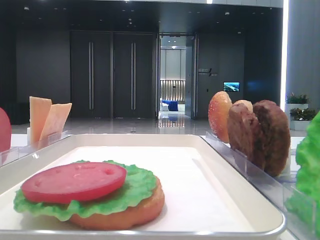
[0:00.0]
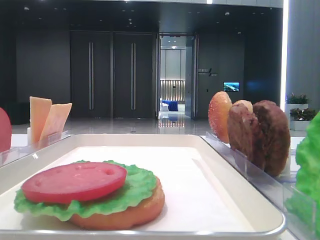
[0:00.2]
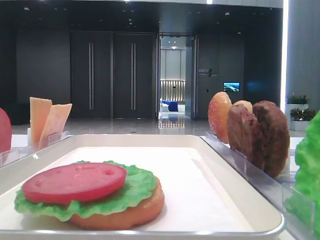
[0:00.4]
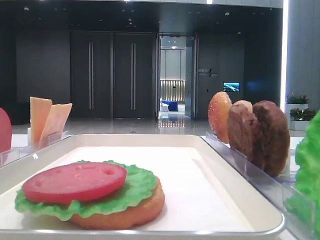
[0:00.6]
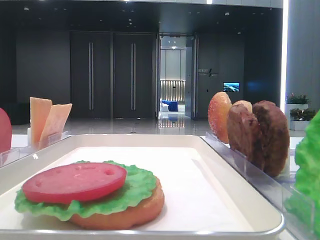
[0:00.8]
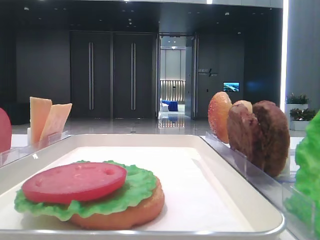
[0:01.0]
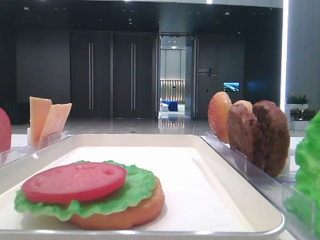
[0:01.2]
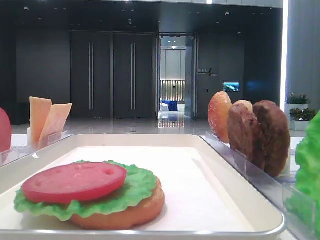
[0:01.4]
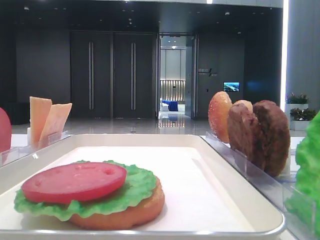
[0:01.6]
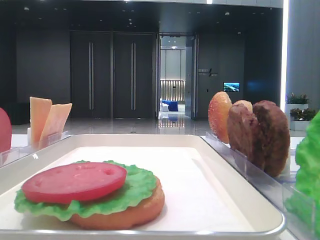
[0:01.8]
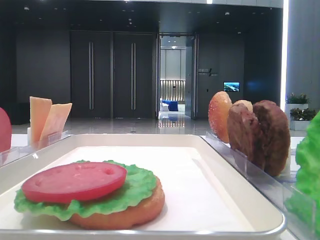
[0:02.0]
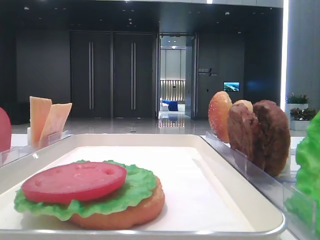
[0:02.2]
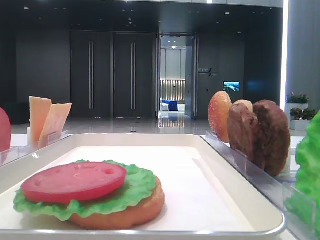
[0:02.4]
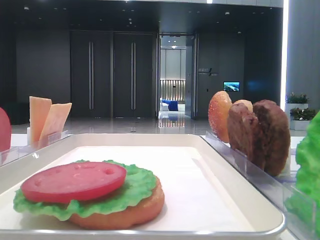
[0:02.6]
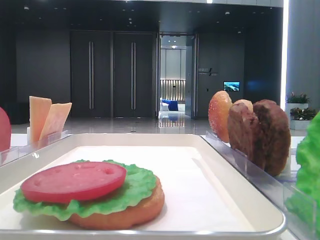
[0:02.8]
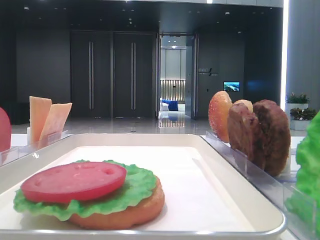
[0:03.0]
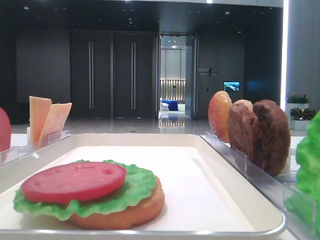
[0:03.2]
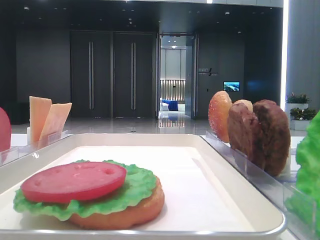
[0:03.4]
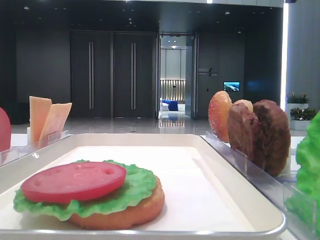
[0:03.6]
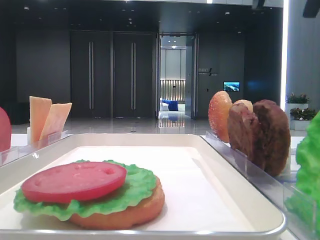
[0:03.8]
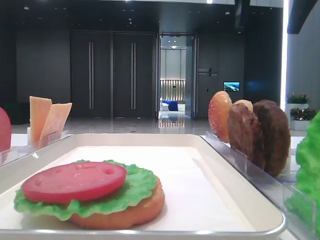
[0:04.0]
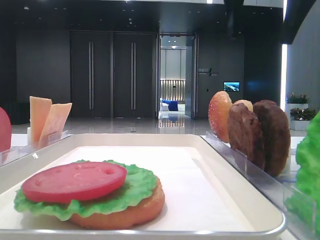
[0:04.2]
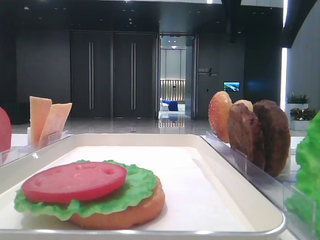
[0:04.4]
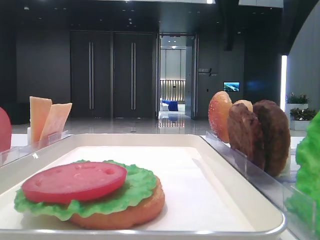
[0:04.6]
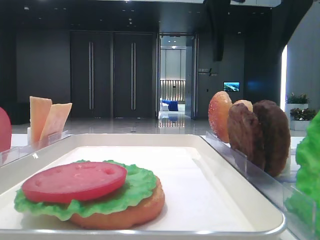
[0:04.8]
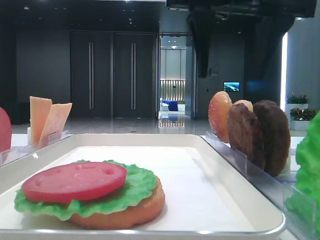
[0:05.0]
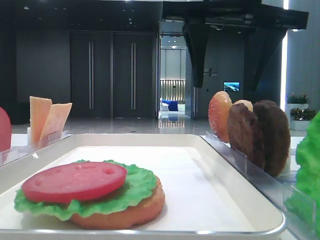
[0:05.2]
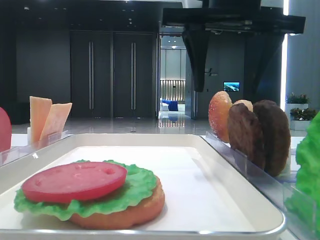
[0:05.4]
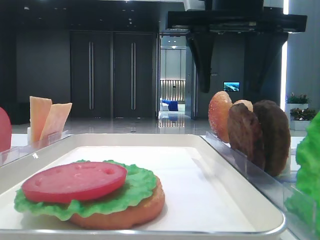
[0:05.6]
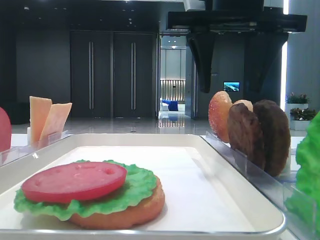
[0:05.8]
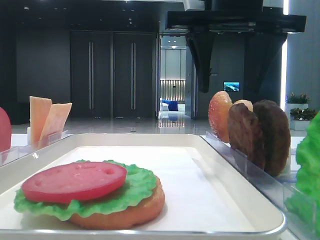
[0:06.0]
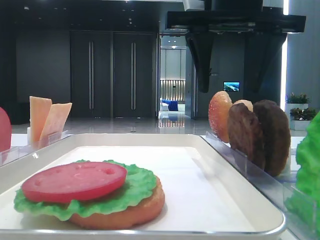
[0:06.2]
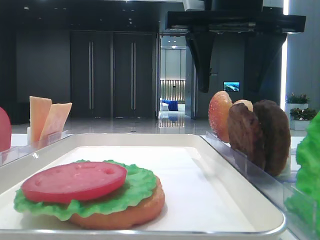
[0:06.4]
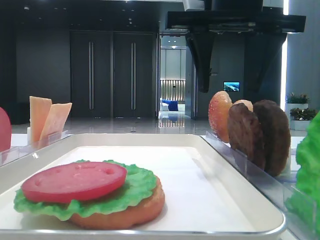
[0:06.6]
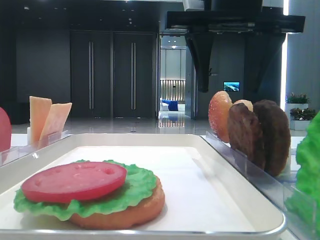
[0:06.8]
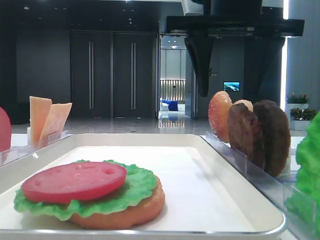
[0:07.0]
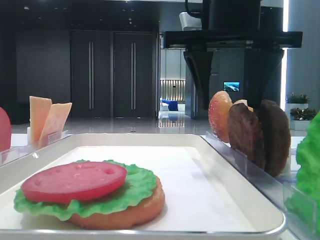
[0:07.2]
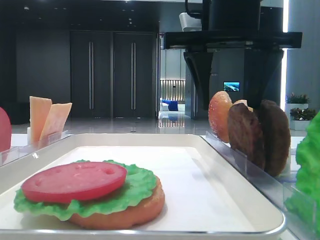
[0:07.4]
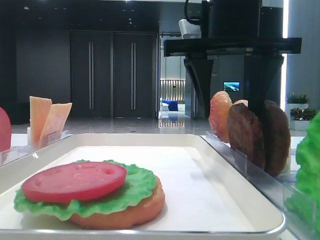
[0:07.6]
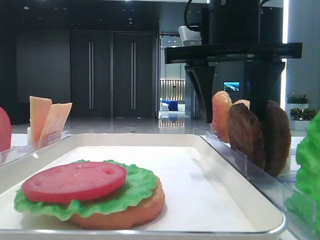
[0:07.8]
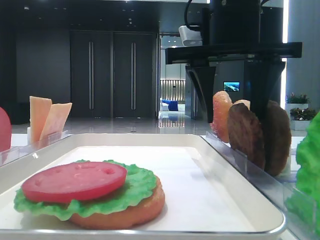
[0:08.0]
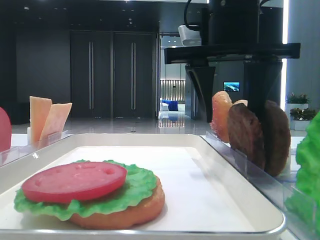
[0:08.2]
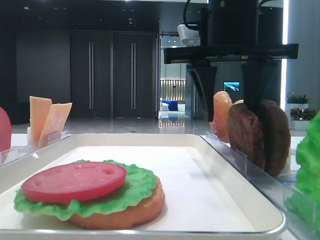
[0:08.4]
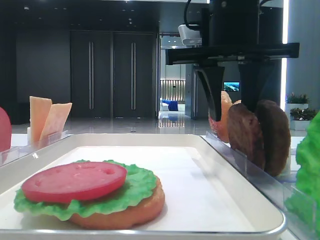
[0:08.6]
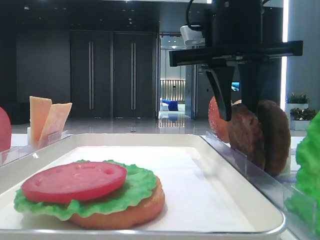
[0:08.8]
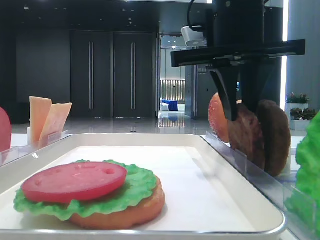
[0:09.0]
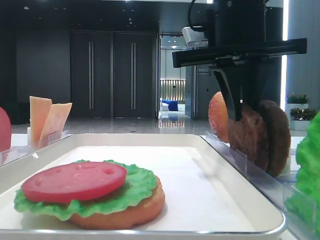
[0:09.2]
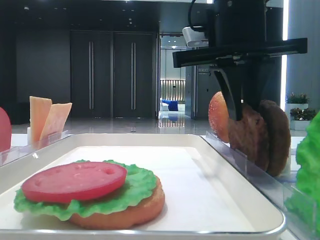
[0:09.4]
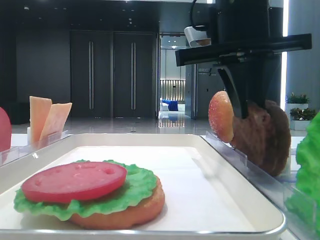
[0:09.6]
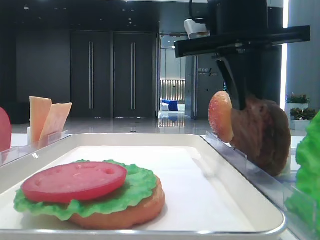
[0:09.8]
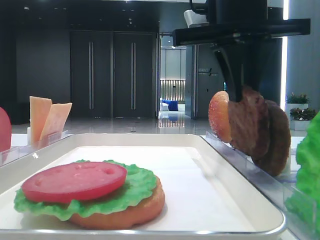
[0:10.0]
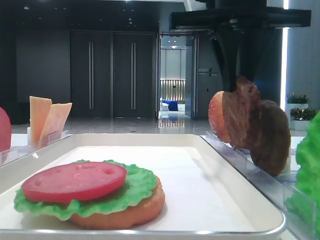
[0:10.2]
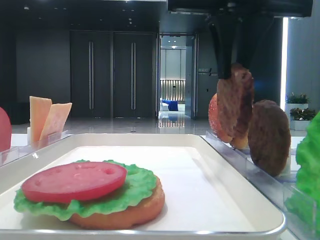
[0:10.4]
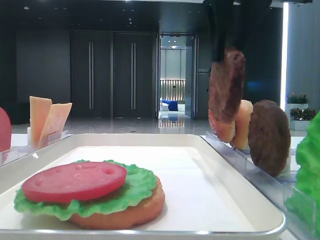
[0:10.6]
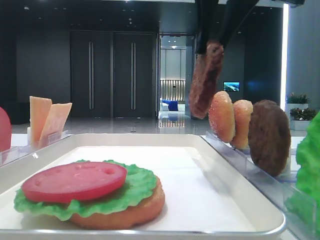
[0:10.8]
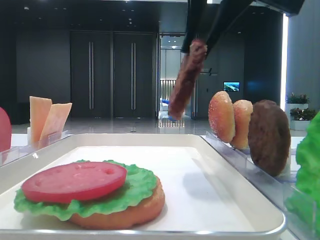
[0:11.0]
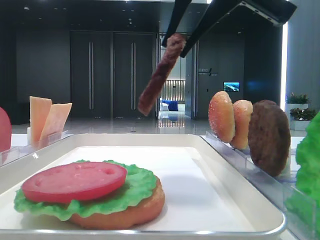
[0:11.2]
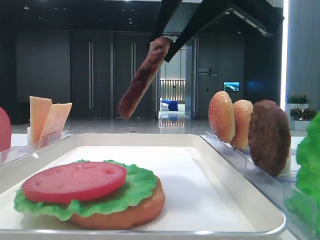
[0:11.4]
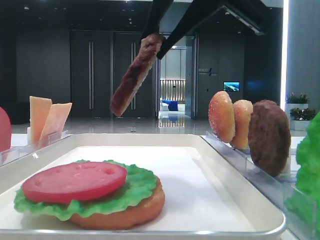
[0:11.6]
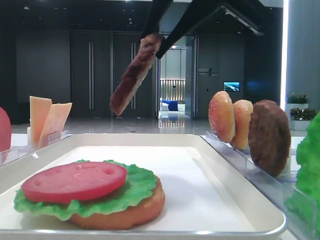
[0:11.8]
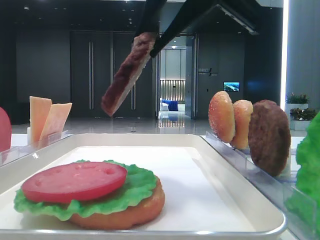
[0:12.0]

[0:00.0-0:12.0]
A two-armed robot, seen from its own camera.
Step, 0:00.0 to 0:09.2: Grab the patty with the right hand.
0:03.0 to 0:04.4: The right gripper is displaced to the left by some 15 cm.
0:04.4 to 0:06.0: The right gripper is displaced downward by roughly 5 cm.
0:06.0 to 0:07.6: The grippers move only a little.
0:07.6 to 0:09.0: The right gripper closes.
0:09.0 to 0:10.4: The right gripper is displaced upward by approximately 5 cm.
0:10.4 to 0:12.0: The right gripper heads backward, covering about 5 cm.

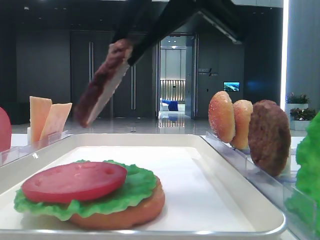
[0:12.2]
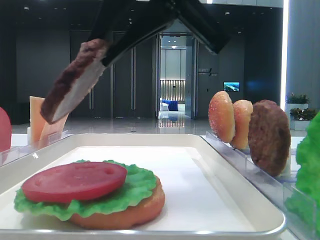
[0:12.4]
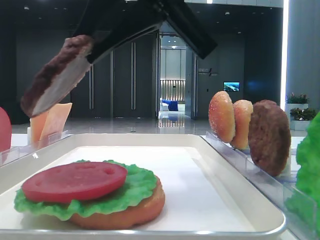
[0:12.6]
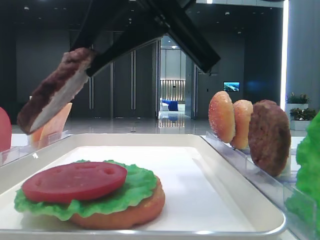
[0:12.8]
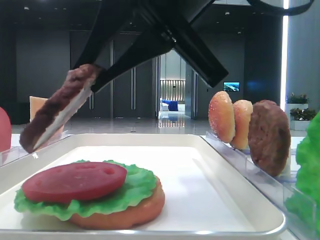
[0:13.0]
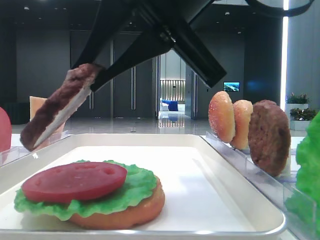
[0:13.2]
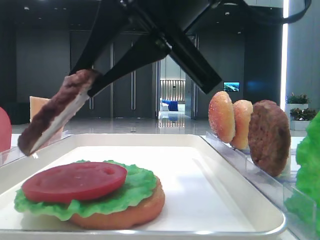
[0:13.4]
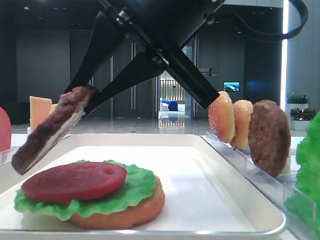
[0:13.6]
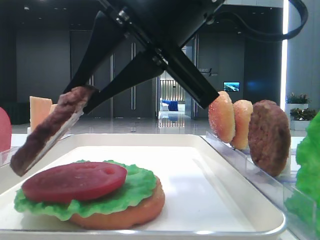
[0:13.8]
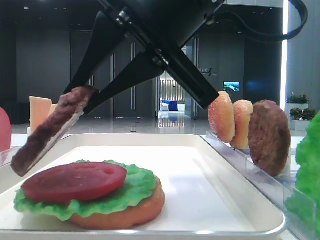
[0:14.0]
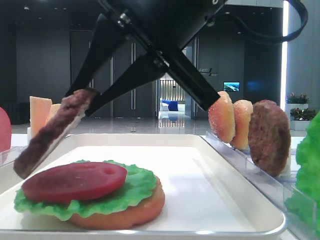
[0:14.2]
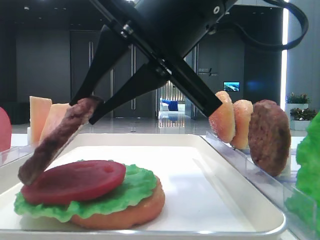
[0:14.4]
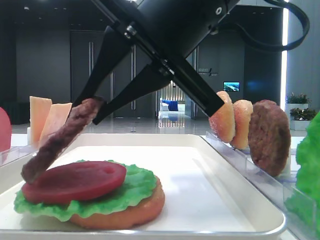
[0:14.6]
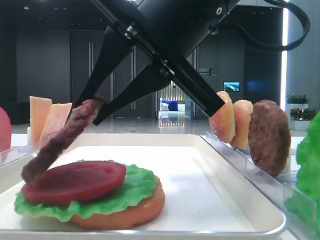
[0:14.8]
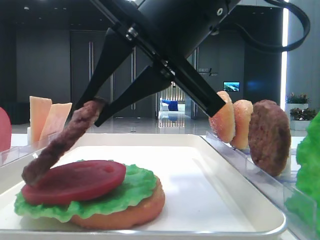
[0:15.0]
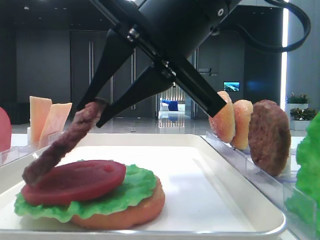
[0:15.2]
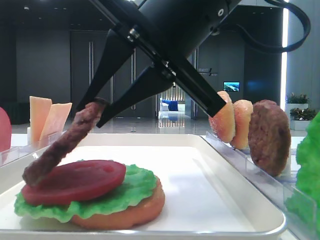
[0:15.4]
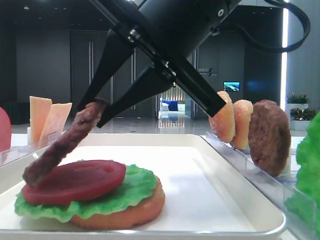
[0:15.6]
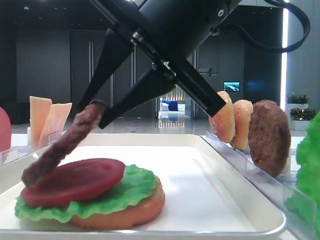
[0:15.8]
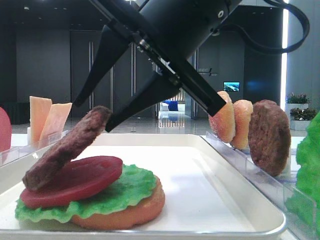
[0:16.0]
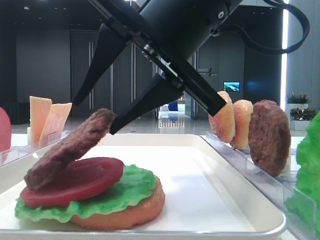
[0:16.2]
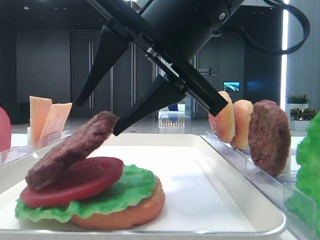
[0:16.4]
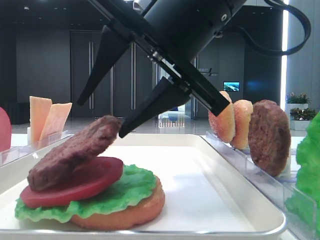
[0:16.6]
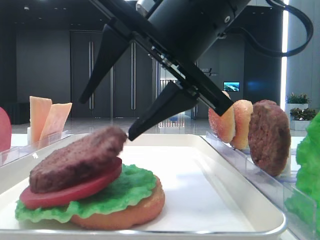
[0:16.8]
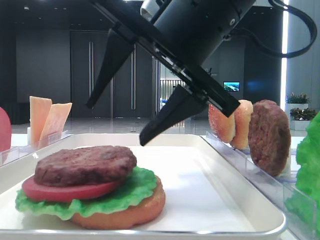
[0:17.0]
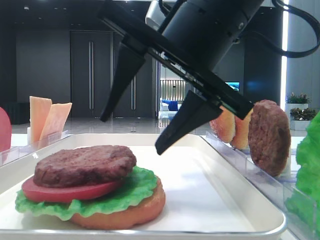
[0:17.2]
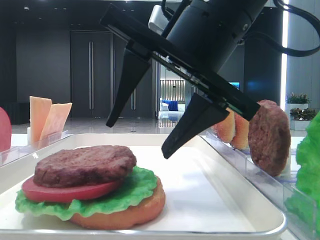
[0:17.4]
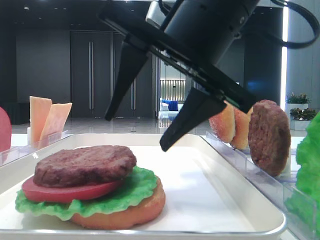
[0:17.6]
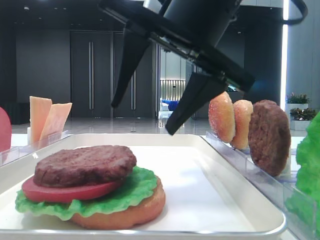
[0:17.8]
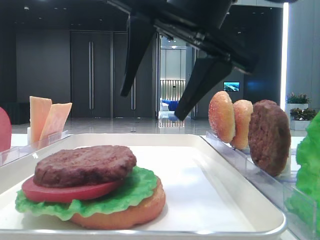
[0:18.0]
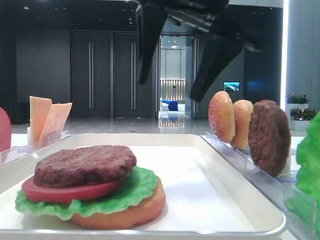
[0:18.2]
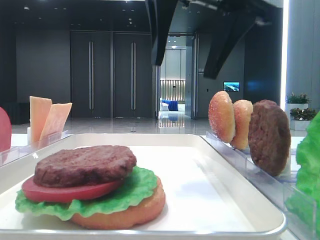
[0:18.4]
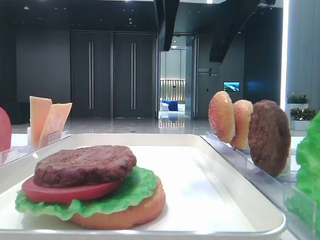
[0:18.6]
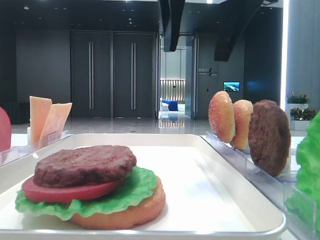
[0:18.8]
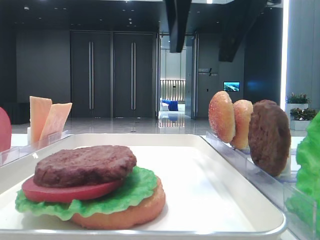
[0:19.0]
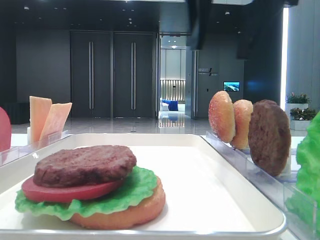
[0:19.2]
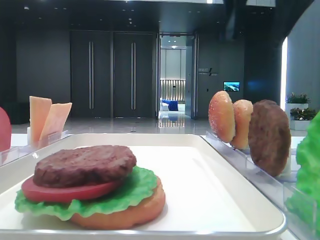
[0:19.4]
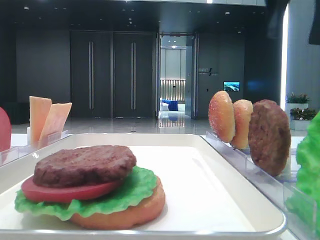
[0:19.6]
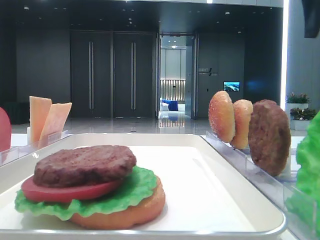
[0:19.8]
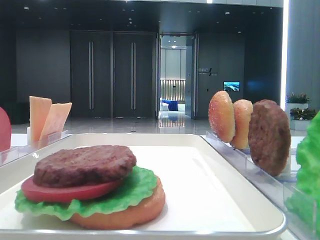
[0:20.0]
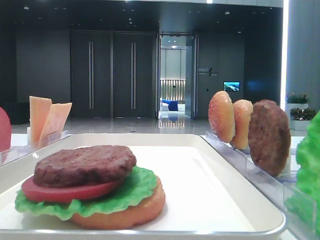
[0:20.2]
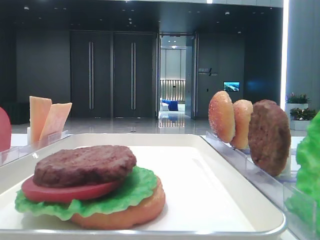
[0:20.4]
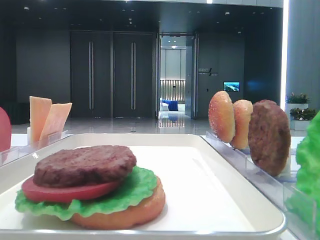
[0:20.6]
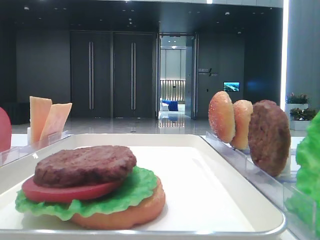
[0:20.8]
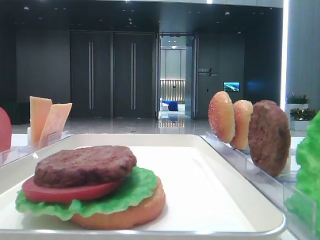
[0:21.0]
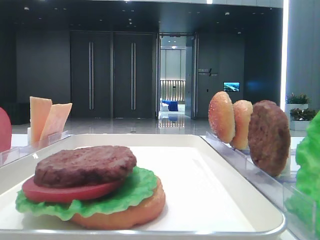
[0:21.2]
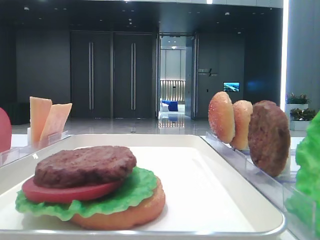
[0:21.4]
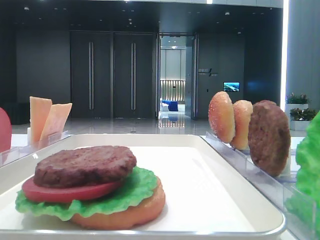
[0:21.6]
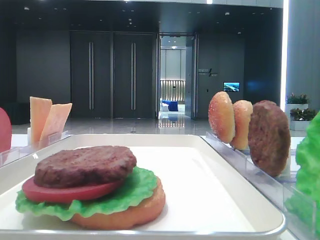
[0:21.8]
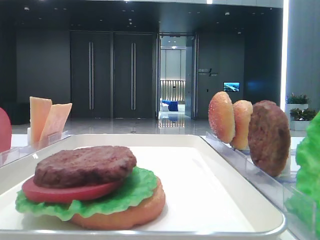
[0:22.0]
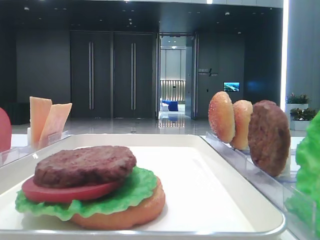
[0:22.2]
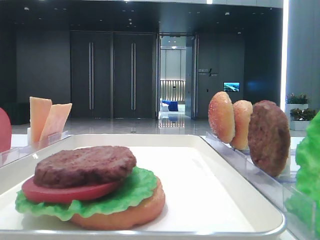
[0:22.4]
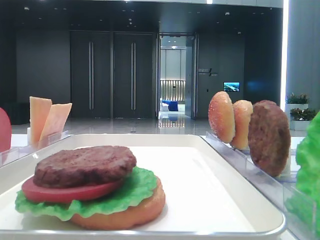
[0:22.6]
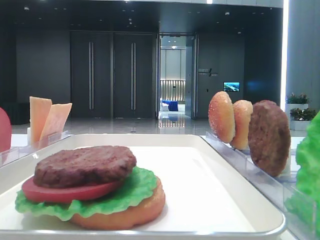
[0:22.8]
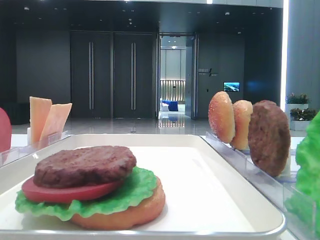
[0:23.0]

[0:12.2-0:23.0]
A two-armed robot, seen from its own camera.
Step, 0:12.2 to 0:16.8: Place the patty on the tomato slice with the right hand.
0:12.2 to 0:13.8: The right gripper shifts some 5 cm downward.
0:13.8 to 0:15.2: Both grippers stay about where they are.
0:15.2 to 0:16.8: The right gripper opens its fingers.
0:16.8 to 0:18.4: The right gripper moves upward, roughly 10 cm.
0:18.4 to 0:20.0: The right gripper travels to the right by approximately 25 cm.
0:20.0 to 0:21.4: The right gripper moves backward, about 25 cm.
